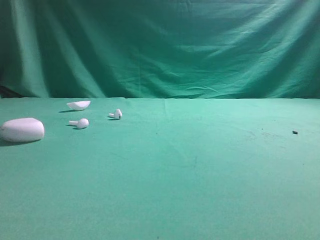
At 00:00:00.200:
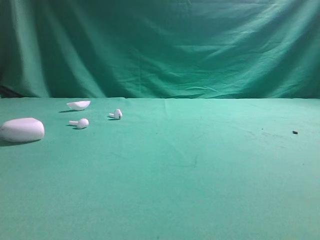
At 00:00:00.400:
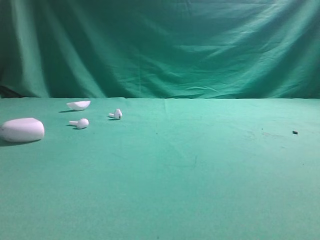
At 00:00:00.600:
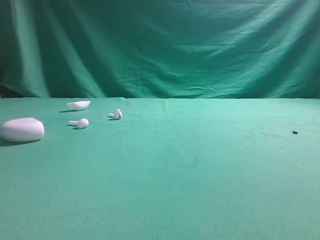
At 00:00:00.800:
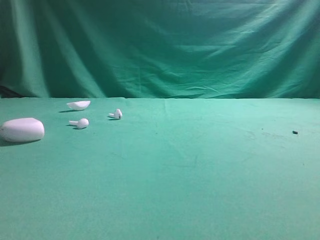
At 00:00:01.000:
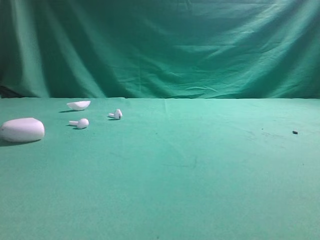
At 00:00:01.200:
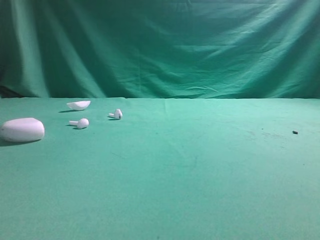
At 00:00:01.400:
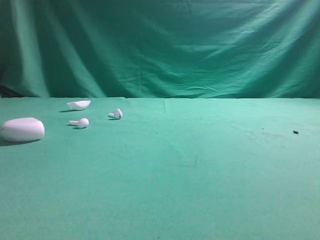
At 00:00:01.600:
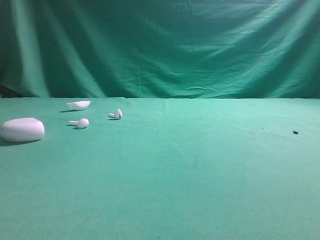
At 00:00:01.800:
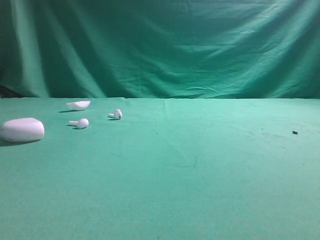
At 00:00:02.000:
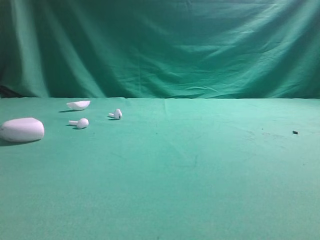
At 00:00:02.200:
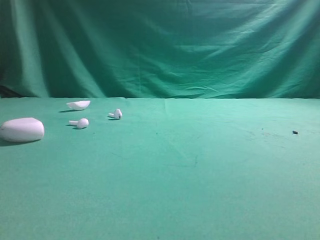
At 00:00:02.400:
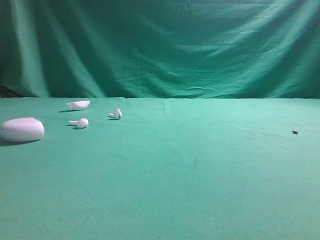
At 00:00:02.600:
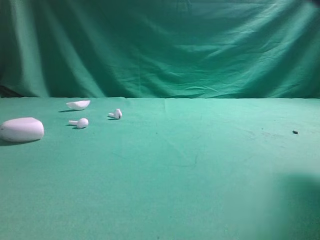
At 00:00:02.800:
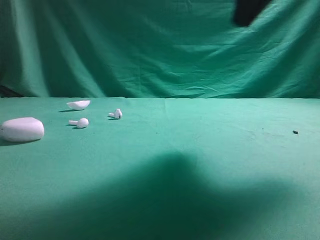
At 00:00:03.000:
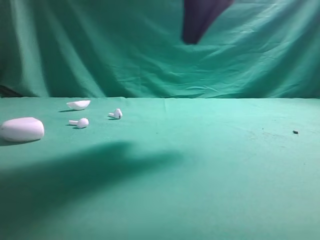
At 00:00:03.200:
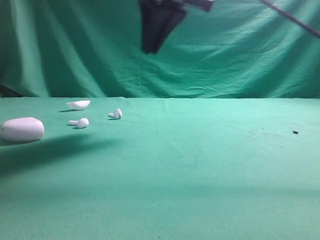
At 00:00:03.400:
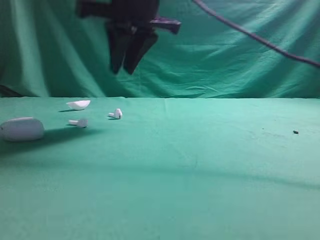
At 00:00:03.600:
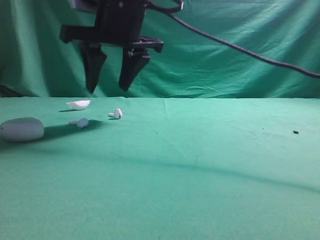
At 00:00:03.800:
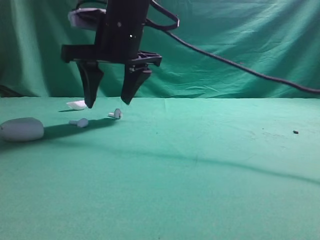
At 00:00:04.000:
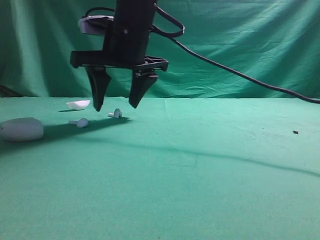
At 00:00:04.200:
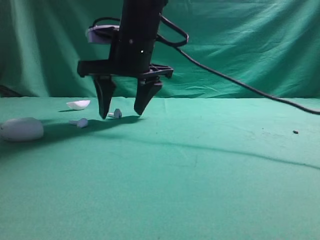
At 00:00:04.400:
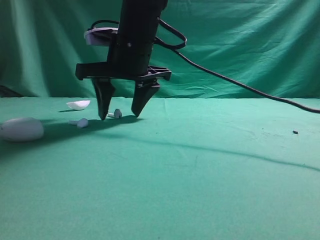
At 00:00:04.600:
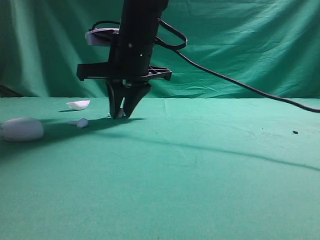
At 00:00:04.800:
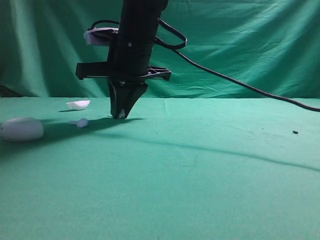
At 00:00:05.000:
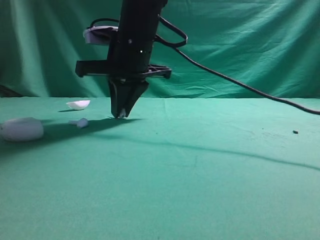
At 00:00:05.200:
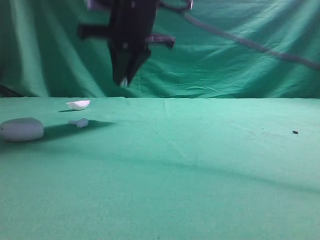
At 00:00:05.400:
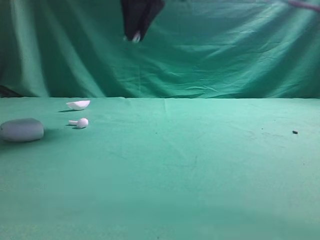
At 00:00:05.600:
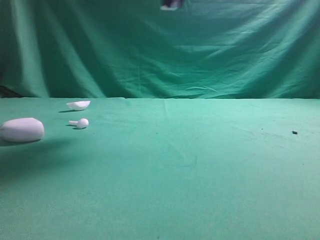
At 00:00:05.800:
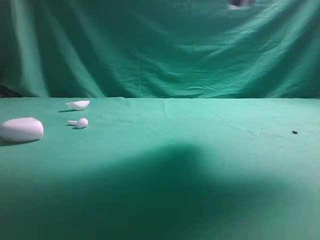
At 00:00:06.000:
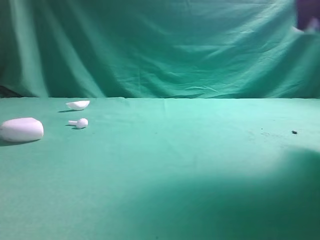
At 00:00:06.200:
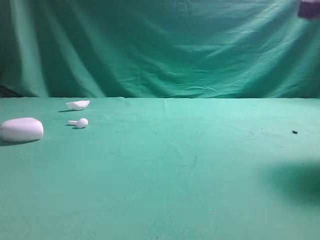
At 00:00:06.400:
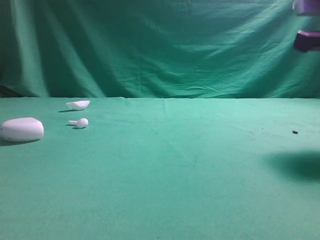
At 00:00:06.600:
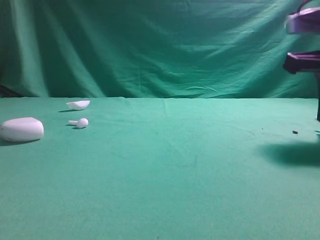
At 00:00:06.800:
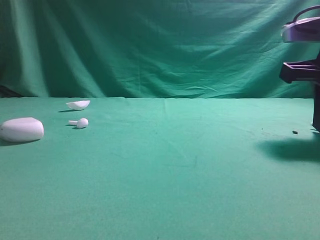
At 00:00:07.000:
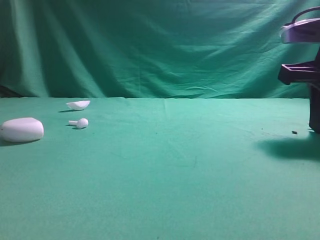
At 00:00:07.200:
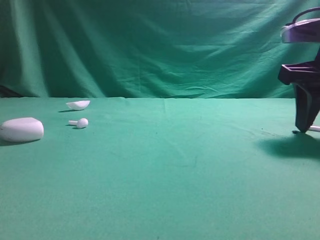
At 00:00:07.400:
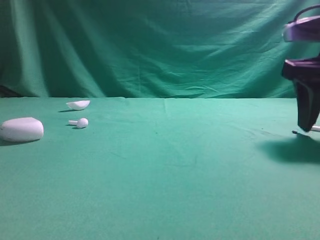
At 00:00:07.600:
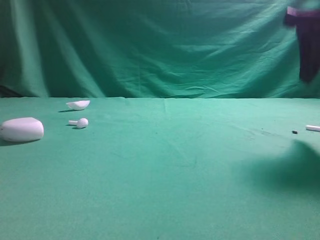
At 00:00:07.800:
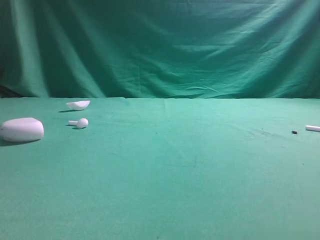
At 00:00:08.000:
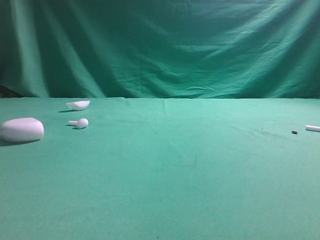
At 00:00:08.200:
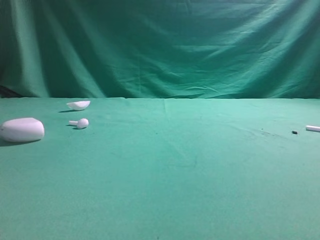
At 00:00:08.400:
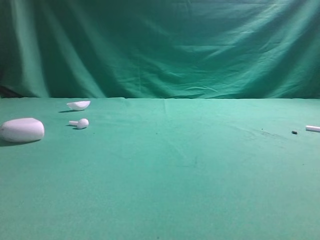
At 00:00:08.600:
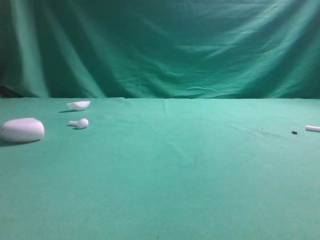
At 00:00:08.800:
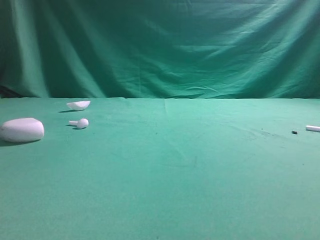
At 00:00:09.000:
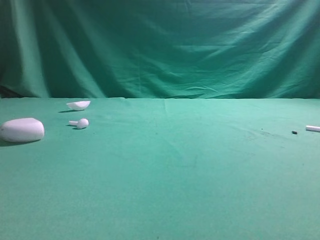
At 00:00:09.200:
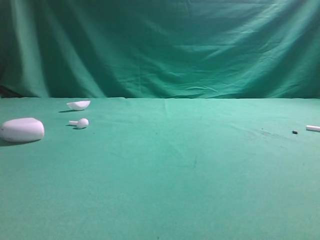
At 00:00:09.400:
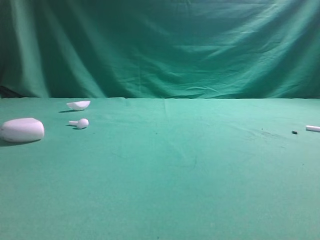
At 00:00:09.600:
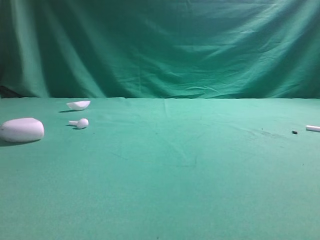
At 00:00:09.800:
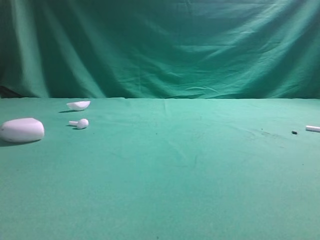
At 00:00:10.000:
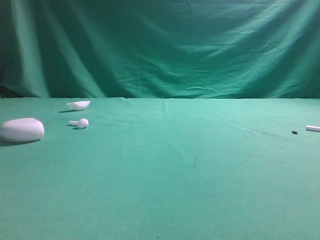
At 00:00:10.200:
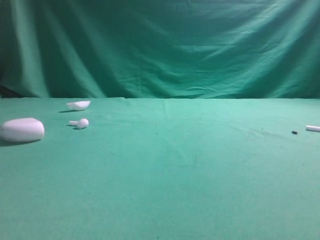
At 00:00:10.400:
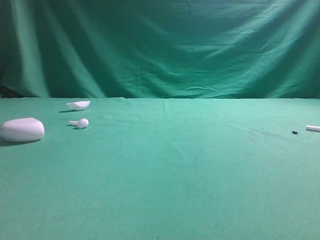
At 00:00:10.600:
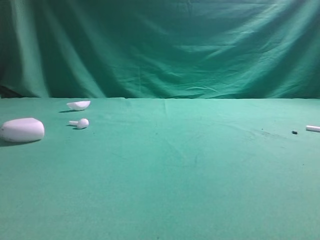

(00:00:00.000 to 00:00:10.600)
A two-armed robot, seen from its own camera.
Step, 00:00:00.000 - 00:00:05.400: Grasp the Bluetooth earbud.
Step, 00:00:05.600 - 00:00:07.600: Place bluetooth earbud on the right side of the table.

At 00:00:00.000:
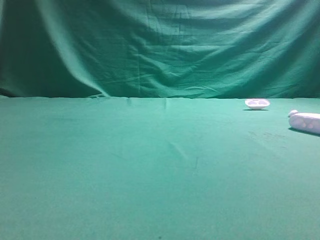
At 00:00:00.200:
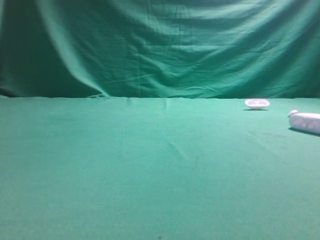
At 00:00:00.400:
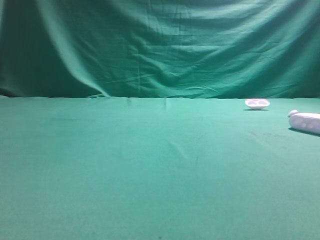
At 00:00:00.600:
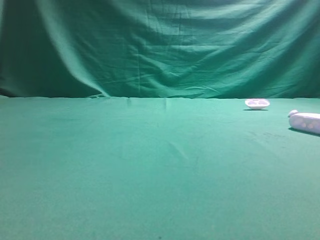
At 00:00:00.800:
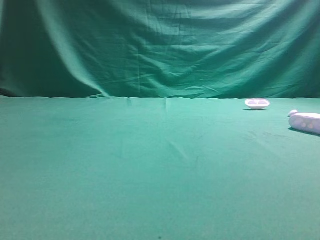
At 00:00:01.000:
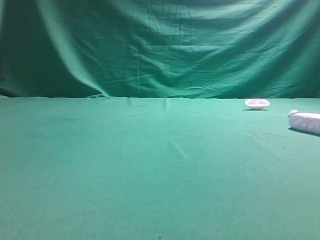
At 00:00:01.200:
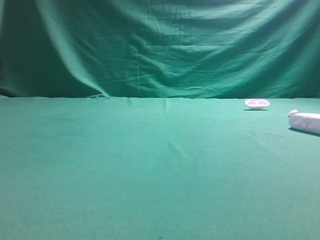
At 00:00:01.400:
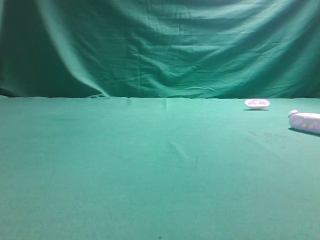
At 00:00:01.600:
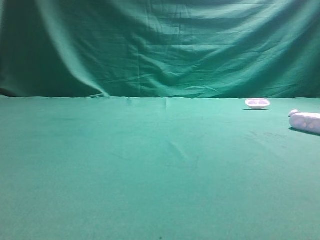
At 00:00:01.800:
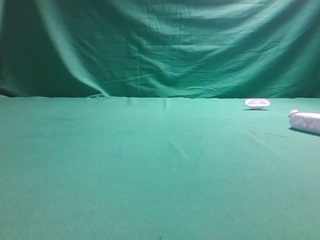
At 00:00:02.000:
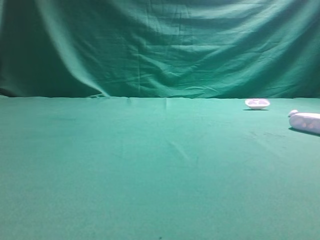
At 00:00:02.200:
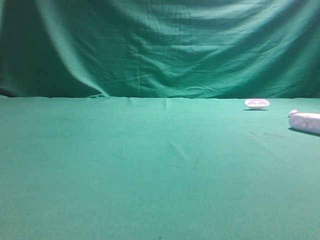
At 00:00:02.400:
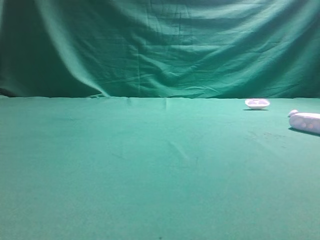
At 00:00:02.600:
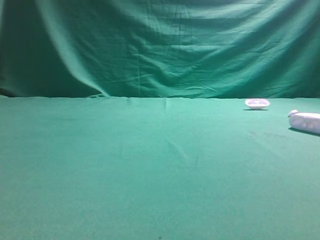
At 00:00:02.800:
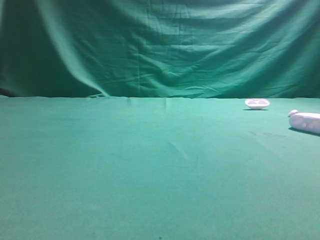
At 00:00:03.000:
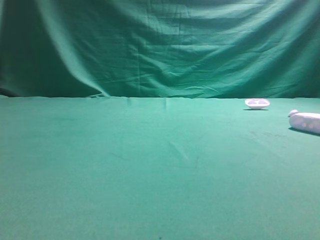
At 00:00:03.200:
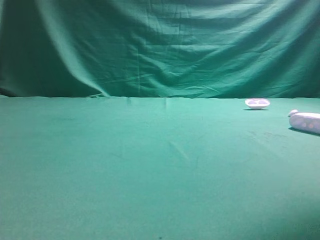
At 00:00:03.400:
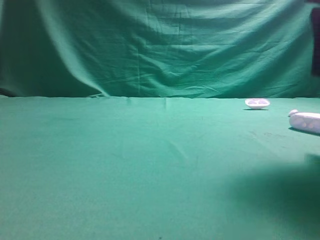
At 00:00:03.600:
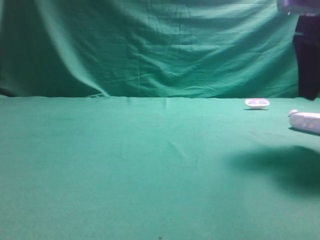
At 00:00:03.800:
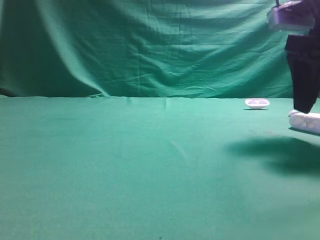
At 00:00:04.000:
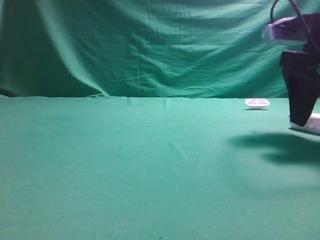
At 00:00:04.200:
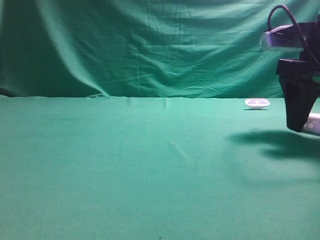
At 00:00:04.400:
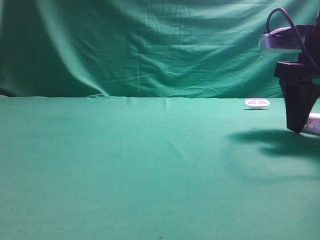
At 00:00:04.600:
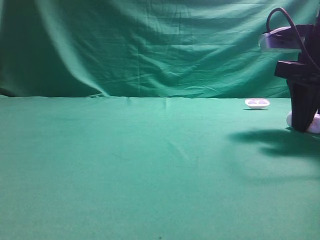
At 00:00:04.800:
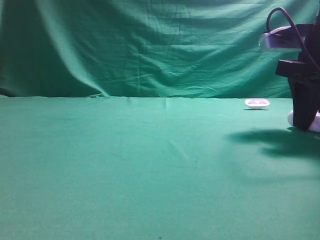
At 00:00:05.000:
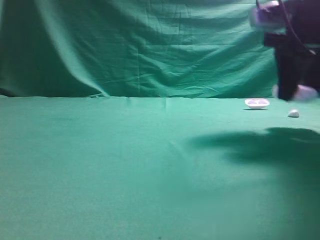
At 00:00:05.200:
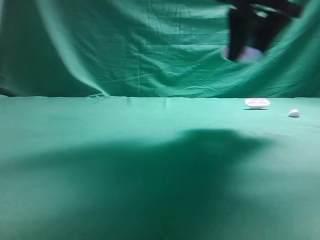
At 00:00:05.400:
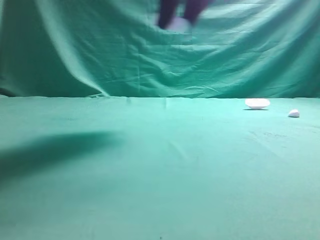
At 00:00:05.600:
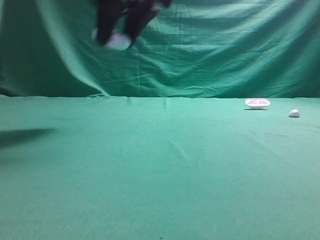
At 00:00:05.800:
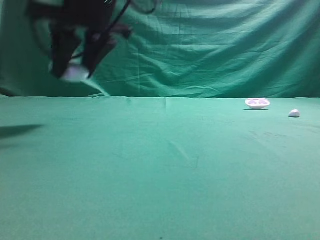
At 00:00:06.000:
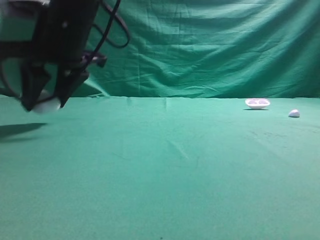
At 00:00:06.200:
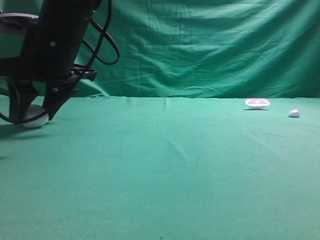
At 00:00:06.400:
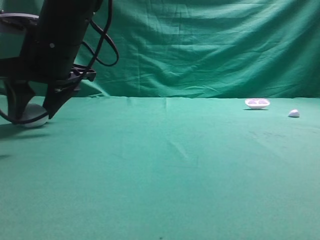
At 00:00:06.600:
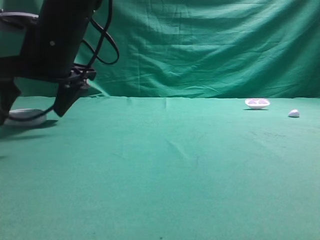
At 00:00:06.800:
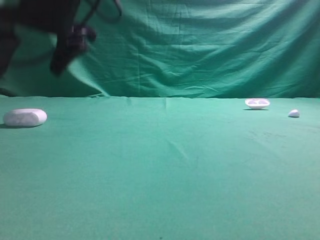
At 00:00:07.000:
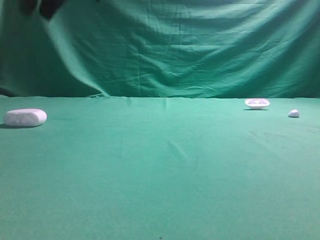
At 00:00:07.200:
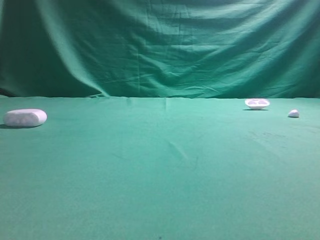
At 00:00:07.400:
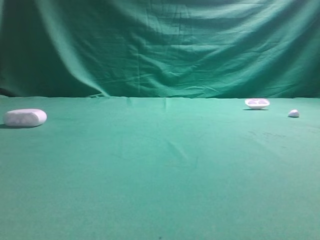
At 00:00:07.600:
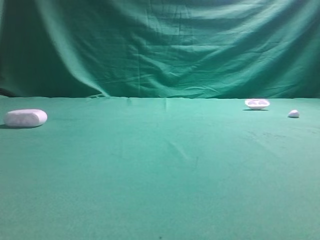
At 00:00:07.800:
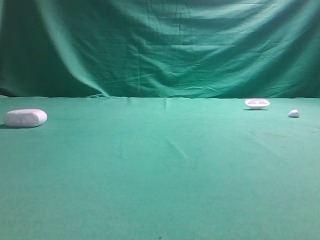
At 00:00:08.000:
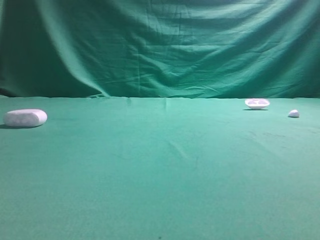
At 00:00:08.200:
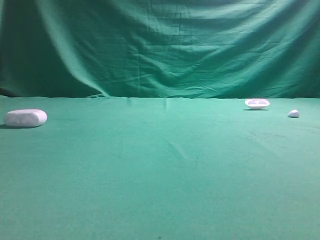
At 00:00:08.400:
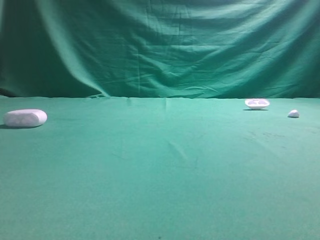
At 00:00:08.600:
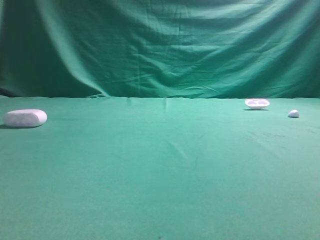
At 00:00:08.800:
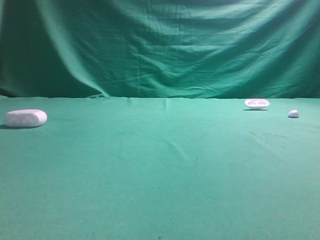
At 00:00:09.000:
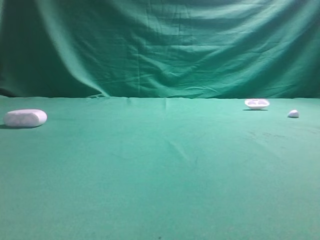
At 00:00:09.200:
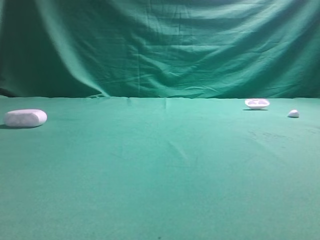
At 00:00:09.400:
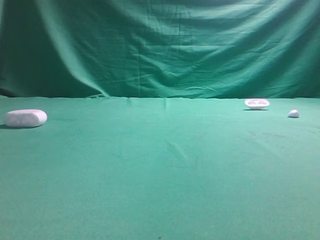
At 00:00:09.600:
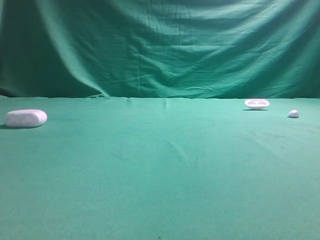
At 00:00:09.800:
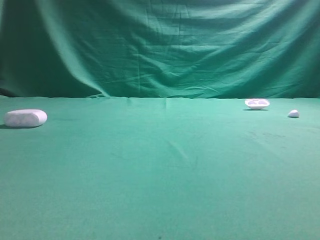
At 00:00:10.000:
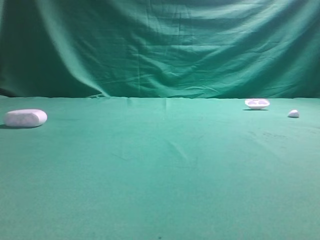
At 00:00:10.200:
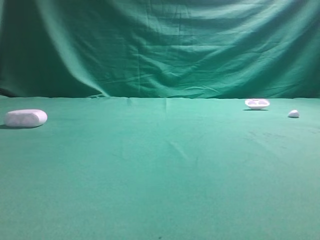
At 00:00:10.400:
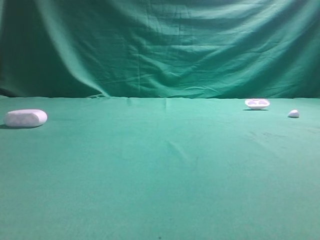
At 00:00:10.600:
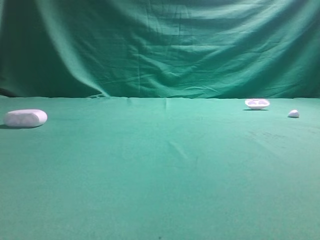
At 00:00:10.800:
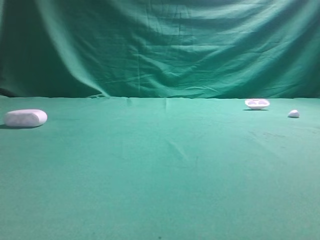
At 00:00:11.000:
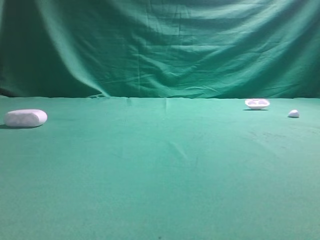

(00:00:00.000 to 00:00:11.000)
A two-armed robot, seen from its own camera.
Step, 00:00:00.000 - 00:00:05.000: Grasp the Bluetooth earphone case.
Step, 00:00:05.200 - 00:00:06.600: Place bluetooth earphone case on the left side of the table.
